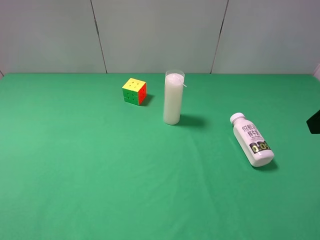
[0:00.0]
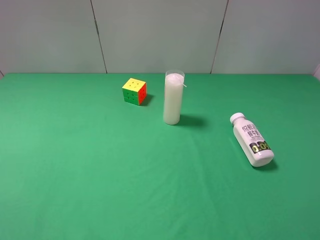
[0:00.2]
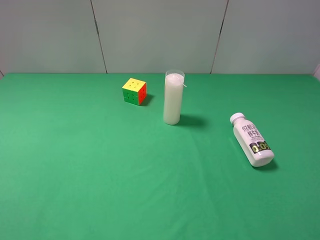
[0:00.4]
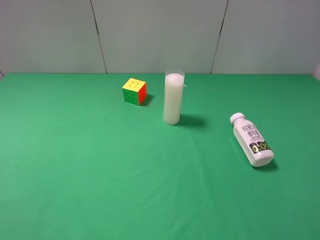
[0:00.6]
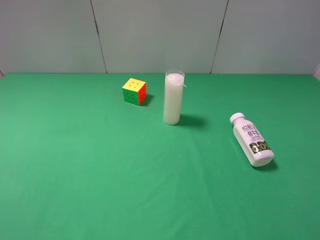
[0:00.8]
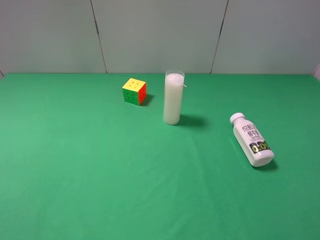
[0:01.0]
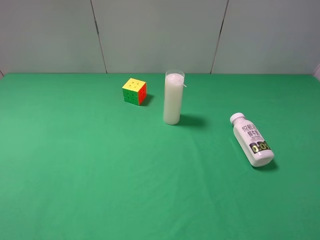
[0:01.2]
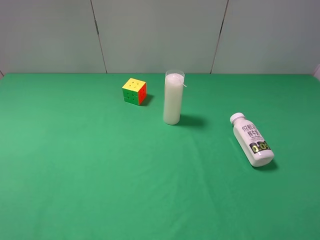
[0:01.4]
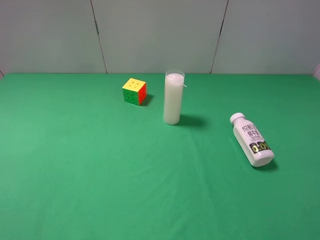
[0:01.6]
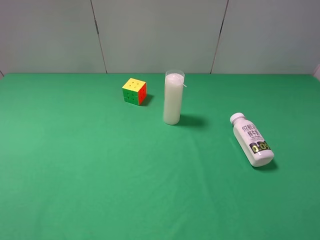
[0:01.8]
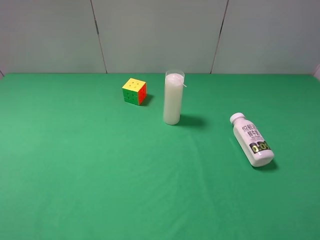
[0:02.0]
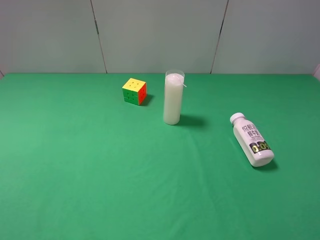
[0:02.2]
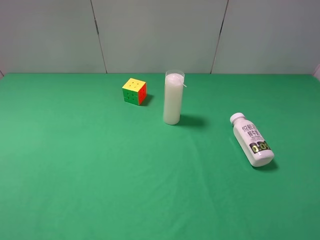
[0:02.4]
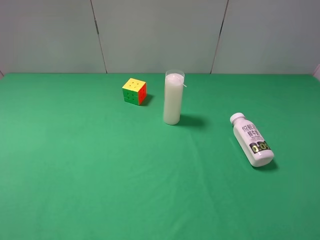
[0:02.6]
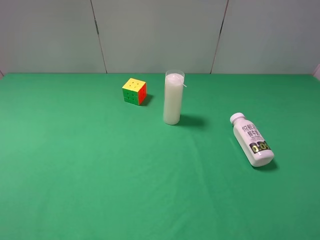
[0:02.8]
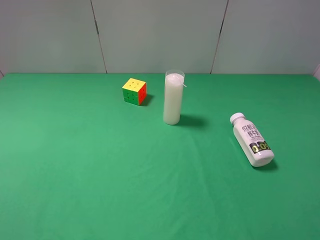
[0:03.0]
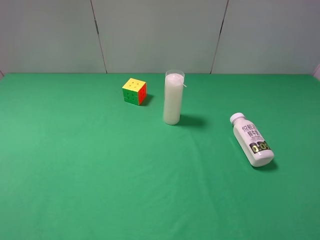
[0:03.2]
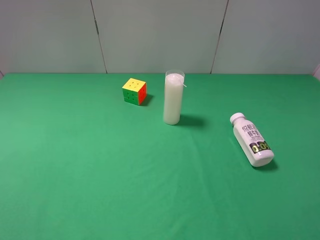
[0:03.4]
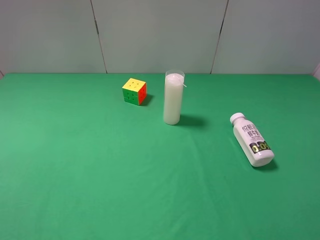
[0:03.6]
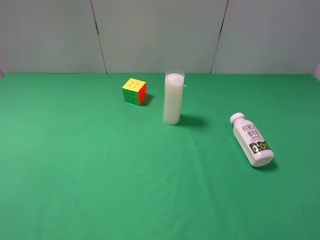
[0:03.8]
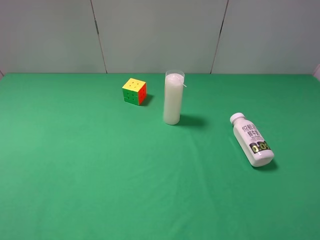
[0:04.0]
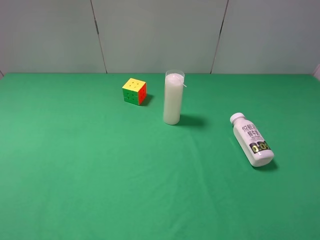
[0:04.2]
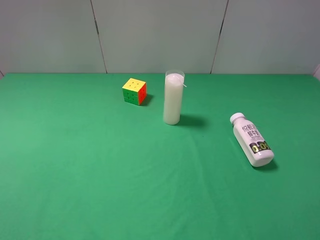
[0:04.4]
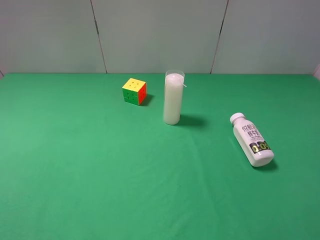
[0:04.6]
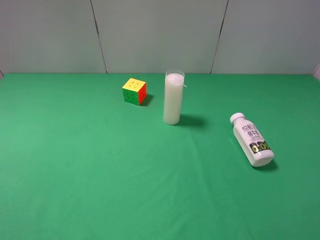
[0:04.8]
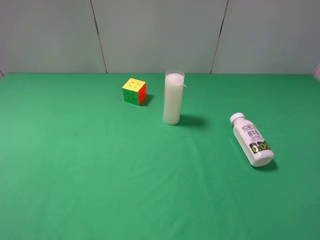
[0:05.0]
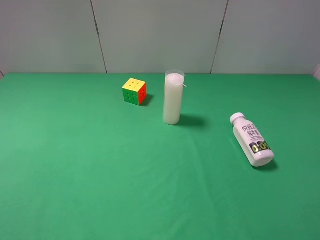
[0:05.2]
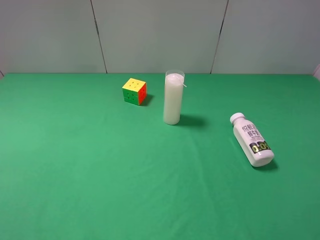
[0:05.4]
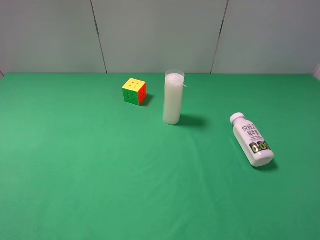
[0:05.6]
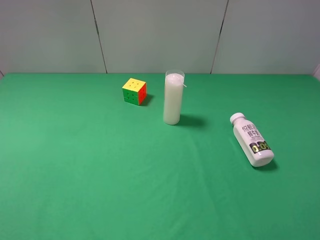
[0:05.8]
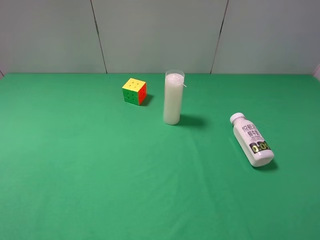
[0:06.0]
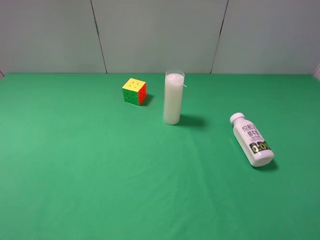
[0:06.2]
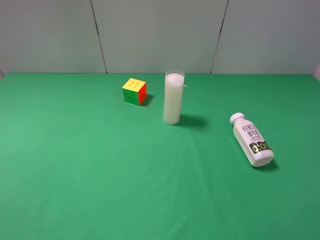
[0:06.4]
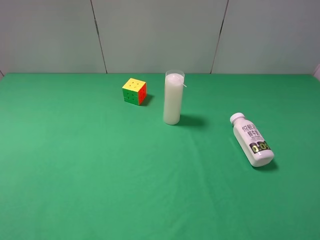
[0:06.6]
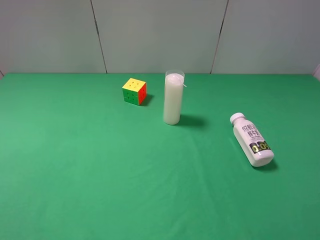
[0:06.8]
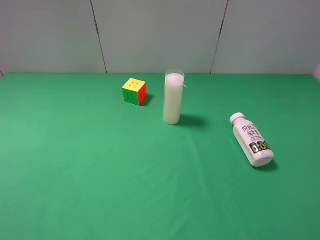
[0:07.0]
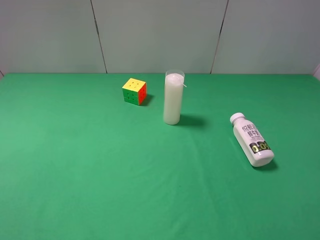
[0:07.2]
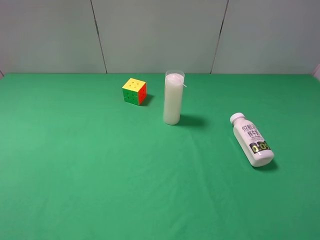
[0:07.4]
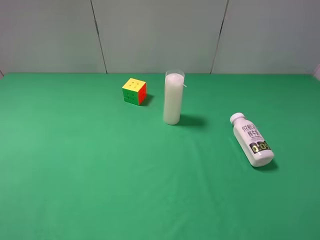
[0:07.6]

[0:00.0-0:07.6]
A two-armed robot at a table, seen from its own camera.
Task of the whole recording: use the left gripper to pick up the item and transfer it from the left gripper to the right gripper.
0:03.0 to 0:06.0: Both grippers stay about where they are.
